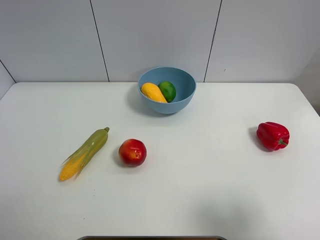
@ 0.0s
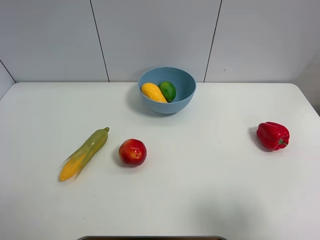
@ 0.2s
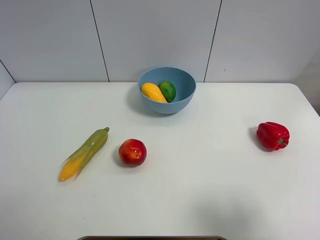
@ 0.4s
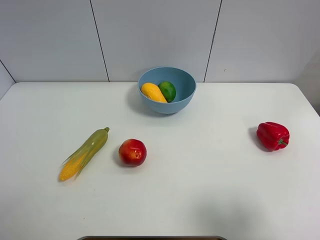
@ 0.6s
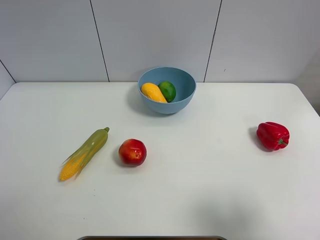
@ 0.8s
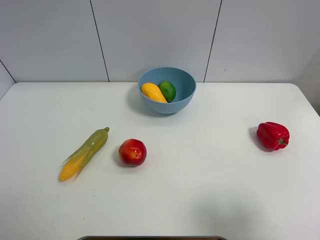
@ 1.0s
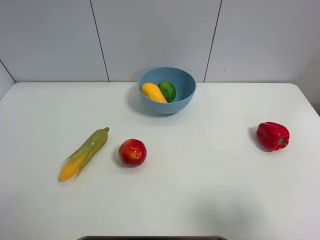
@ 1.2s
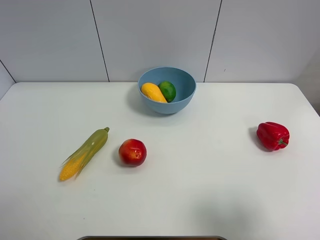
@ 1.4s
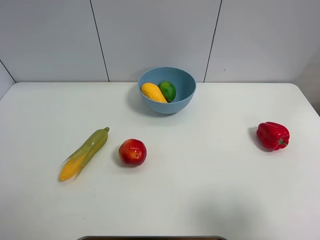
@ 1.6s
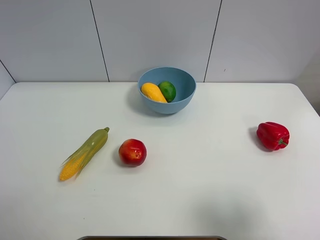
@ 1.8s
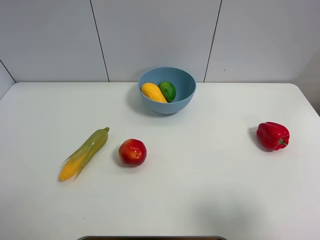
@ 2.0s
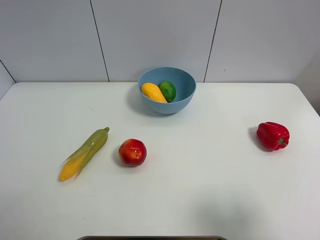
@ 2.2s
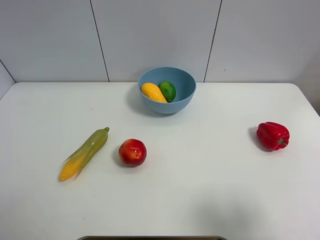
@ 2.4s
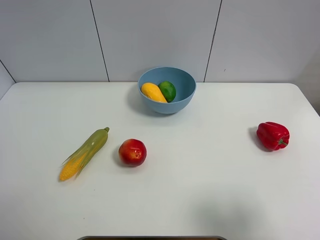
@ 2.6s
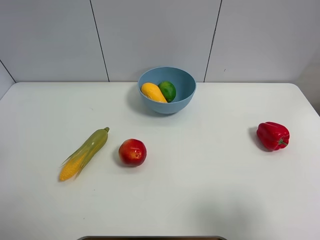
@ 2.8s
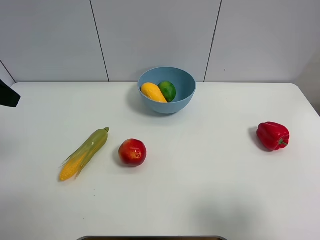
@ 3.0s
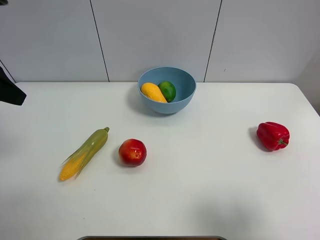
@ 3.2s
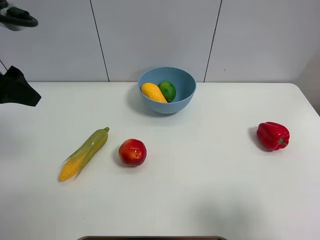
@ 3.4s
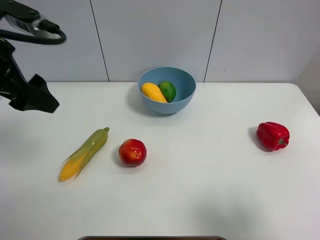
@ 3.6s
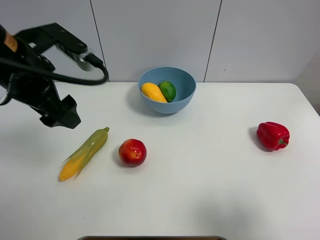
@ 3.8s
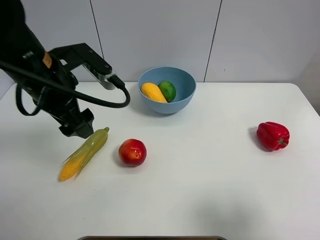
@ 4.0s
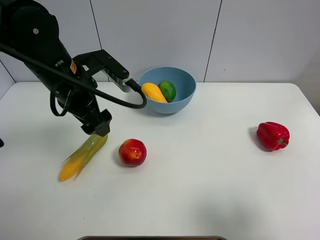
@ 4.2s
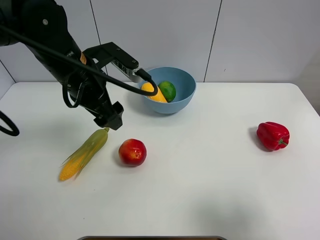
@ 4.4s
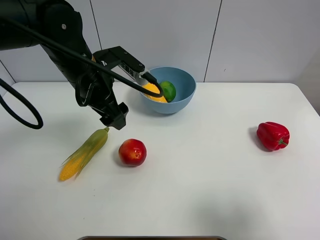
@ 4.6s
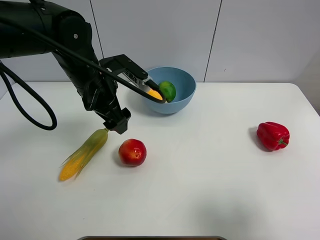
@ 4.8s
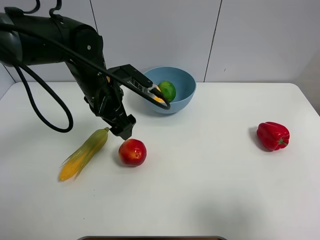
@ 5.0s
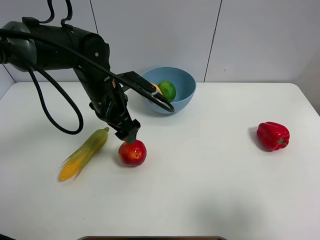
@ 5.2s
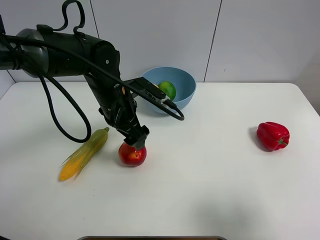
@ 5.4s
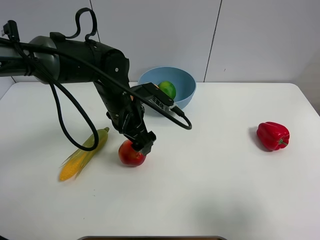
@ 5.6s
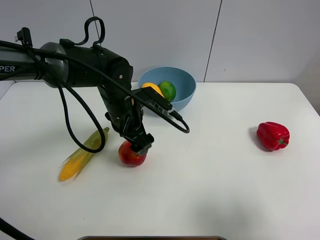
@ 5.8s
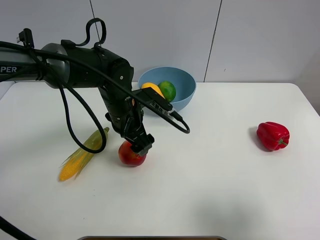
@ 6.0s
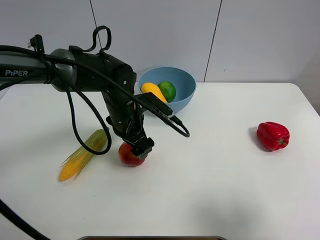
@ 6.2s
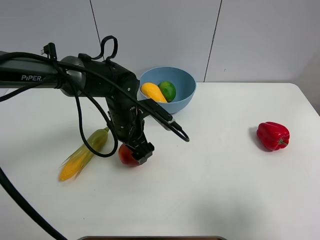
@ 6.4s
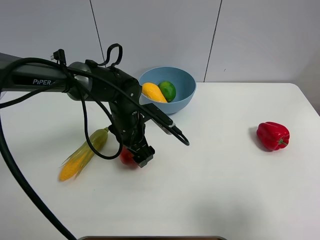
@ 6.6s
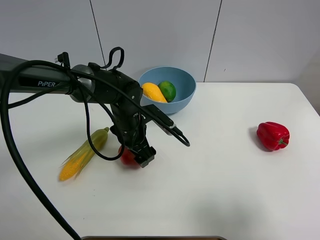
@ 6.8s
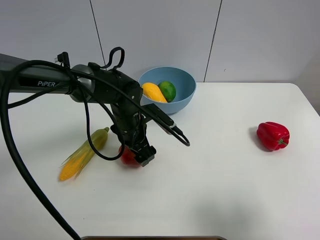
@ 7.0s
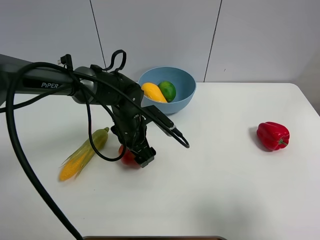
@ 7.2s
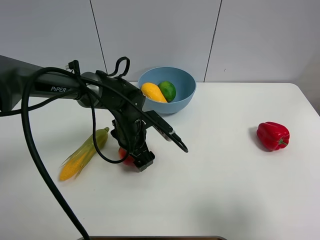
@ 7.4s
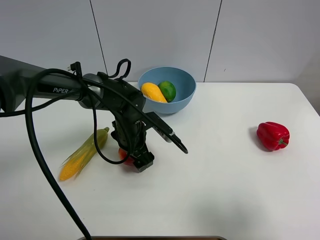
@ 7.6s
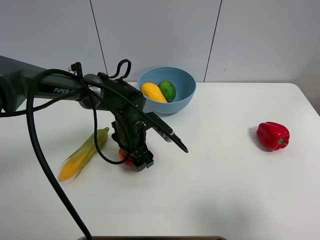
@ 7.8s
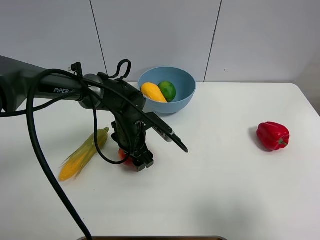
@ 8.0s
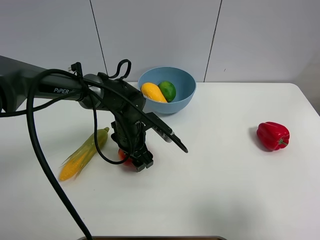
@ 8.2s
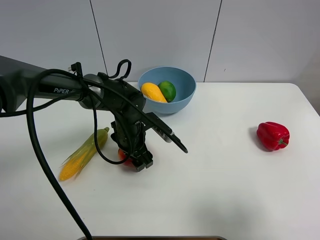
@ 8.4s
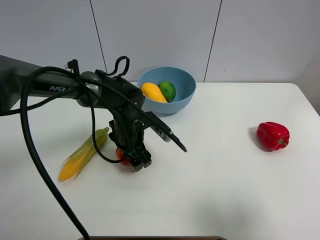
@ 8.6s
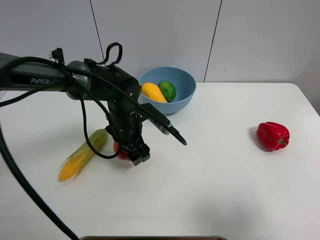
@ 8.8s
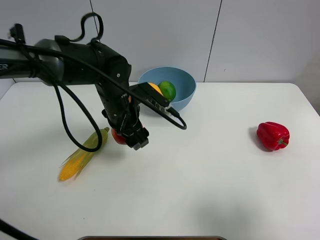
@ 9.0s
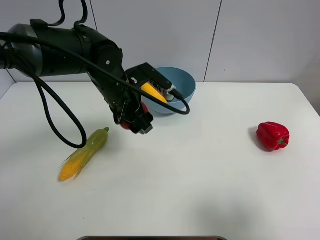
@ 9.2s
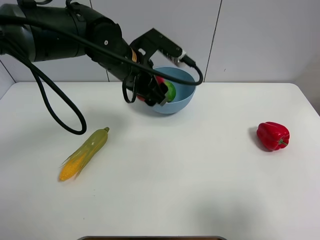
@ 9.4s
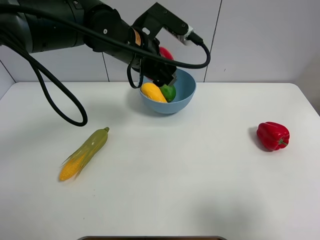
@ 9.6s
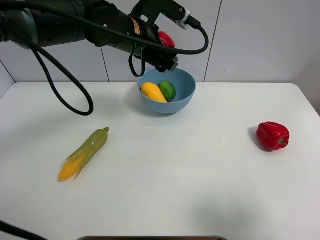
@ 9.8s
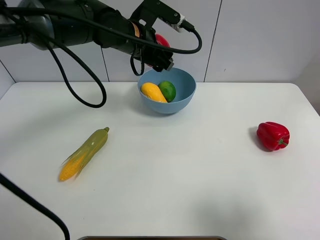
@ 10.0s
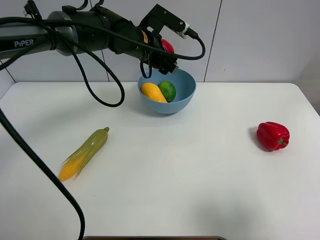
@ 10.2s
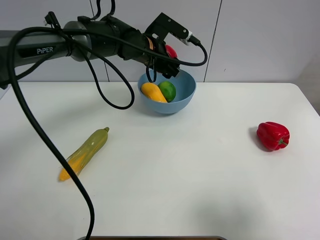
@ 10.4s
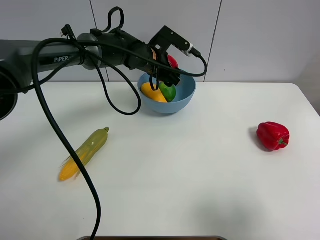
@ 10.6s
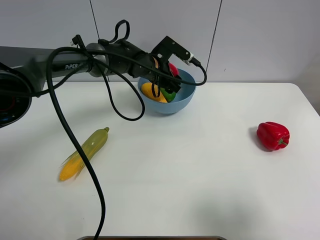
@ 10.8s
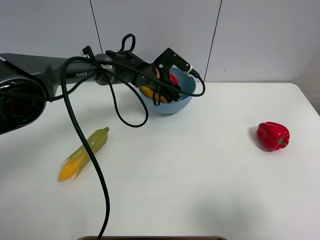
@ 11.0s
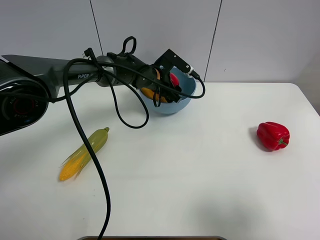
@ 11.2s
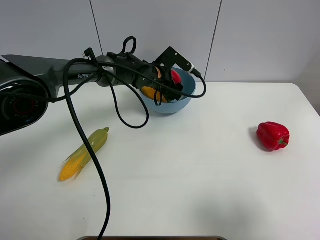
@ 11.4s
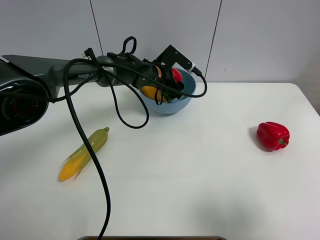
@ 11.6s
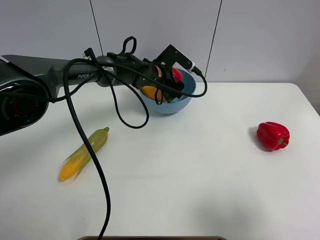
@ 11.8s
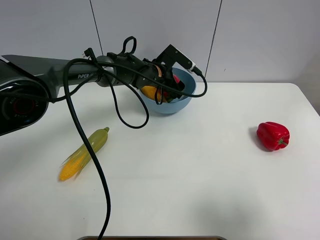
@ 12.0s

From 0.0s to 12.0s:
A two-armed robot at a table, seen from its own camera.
Task of the whole recording: Put the three fruits on the table into a bowl.
Step, from 0.0s to 7.8s: Grasp the pomegranate with left gripper.
From 0.0s to 1.6s: Both grippers stay put.
From 3.0s to 4.4s: The left gripper goes approximately 20 cm to the right and downward.
From 4.4s to 6.0s: The left gripper heads downward and to the right, covering some 10 cm.
From 6.0s to 7.6s: The left gripper heads downward, covering roughly 10 cm, and closes its fingers.
From 7.6s to 9.0s: The left gripper shifts roughly 10 cm upward, and closes.
From 9.0s to 10.4s: The left gripper is displaced forward and to the right by roughly 15 cm.
From 10.4s to 12.0s: The left gripper shifts about 10 cm downward.

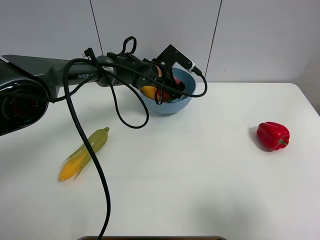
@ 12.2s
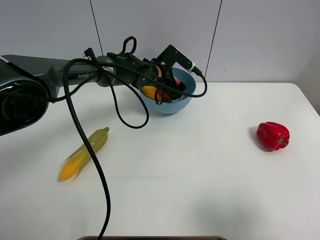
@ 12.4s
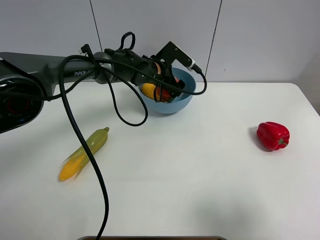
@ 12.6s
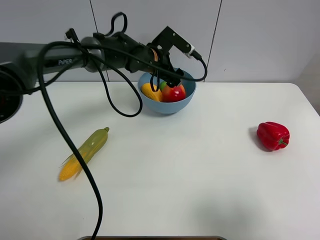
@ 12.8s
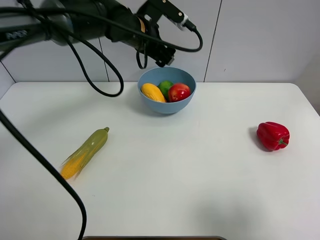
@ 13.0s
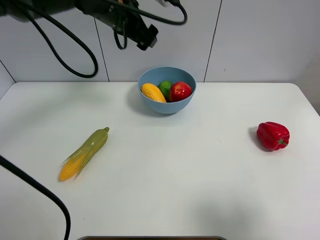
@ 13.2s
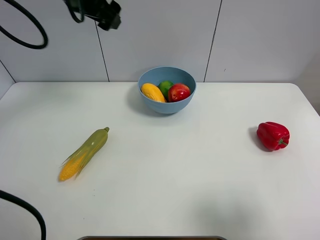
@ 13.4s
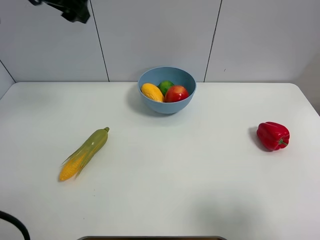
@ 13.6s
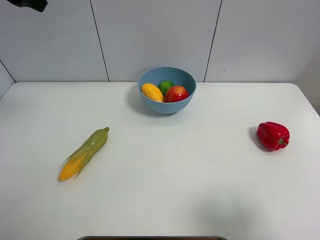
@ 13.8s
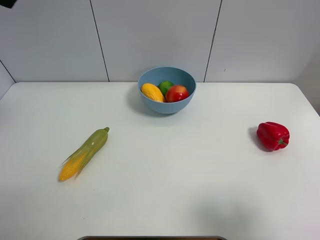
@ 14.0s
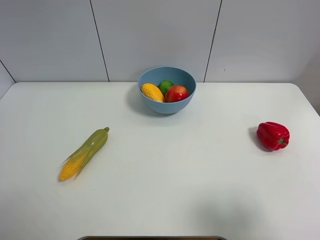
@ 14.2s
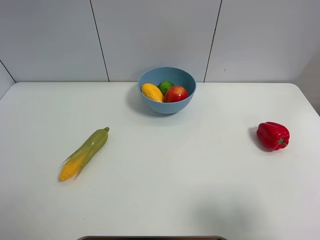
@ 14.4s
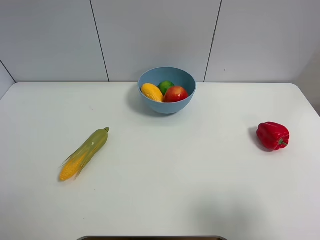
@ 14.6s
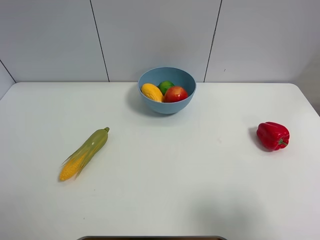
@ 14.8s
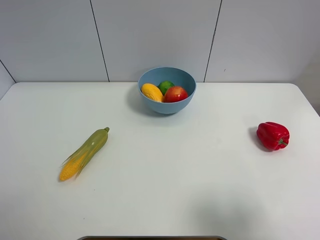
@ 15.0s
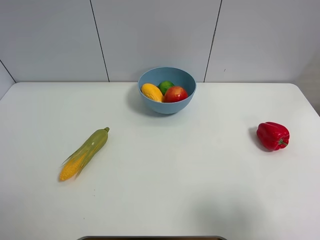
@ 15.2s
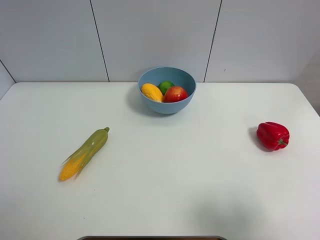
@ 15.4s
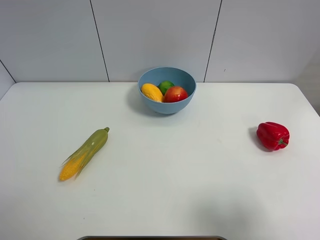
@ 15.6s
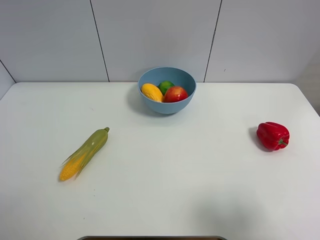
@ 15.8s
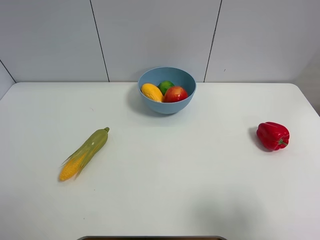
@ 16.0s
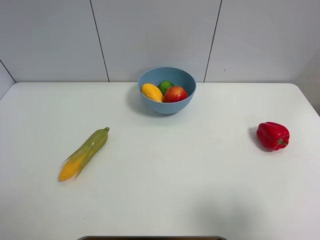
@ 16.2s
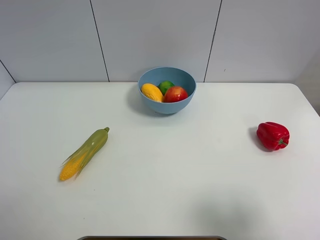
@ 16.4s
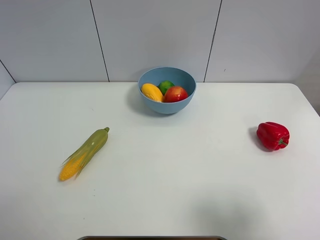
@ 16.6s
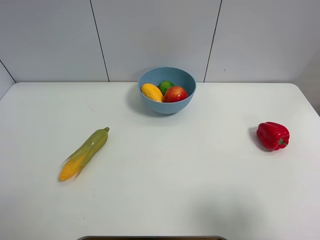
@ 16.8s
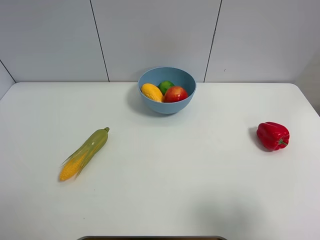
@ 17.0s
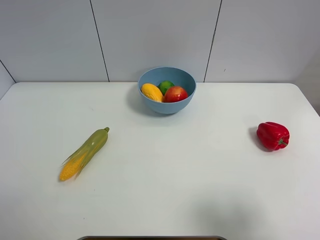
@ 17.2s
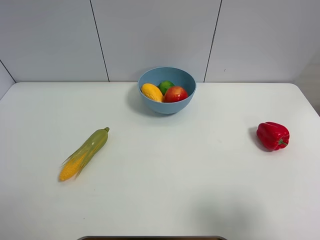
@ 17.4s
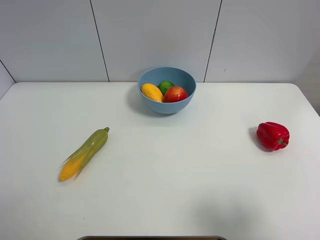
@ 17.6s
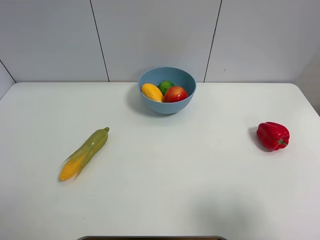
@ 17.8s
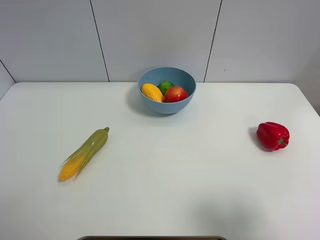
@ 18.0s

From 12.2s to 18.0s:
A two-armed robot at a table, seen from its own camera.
Task of the whole recording: Put the three fruits on the table into a bowl.
From 12.2s to 13.6s: The left gripper travels upward and to the left by about 35 cm.
From 13.6s to 15.0s: The left gripper heads backward and to the left, covering some 40 cm.

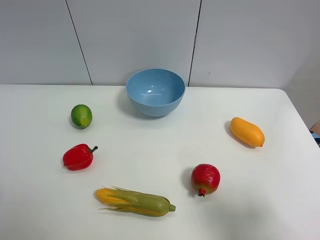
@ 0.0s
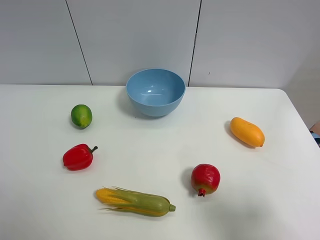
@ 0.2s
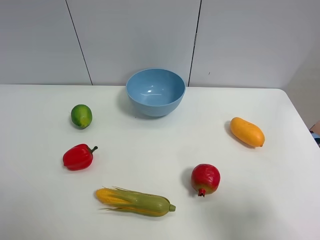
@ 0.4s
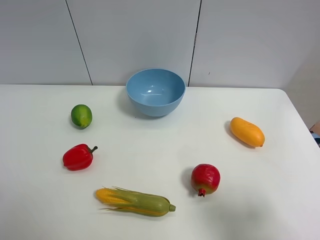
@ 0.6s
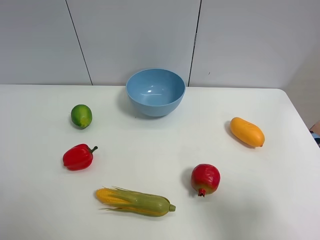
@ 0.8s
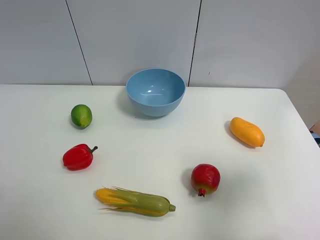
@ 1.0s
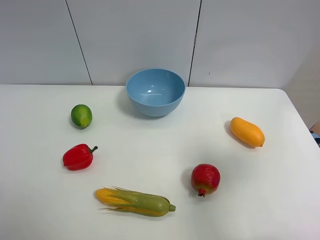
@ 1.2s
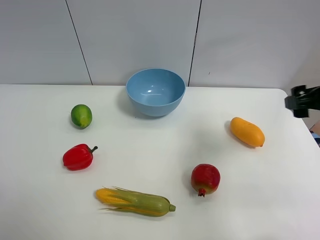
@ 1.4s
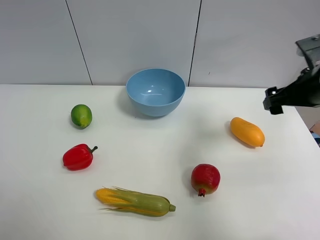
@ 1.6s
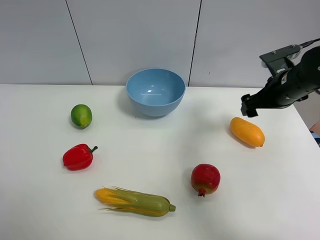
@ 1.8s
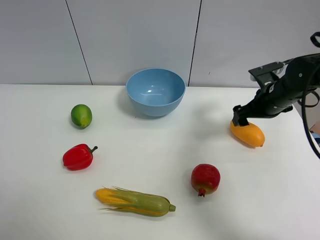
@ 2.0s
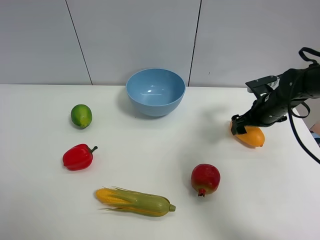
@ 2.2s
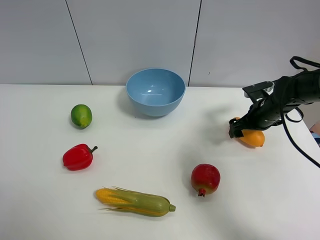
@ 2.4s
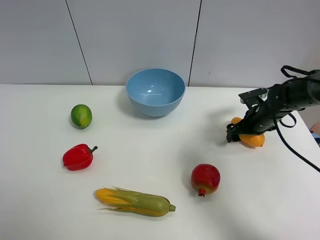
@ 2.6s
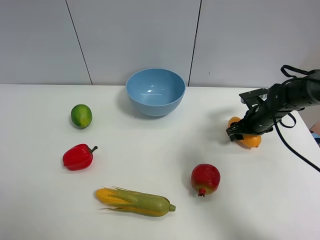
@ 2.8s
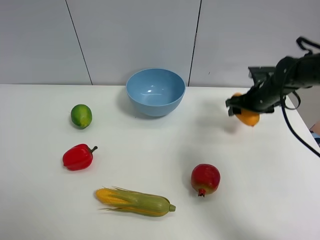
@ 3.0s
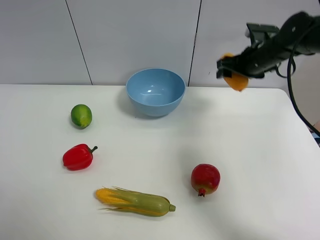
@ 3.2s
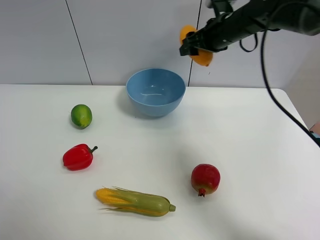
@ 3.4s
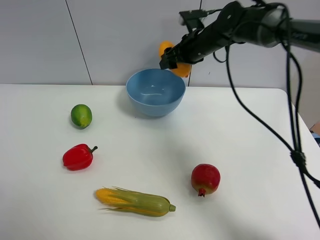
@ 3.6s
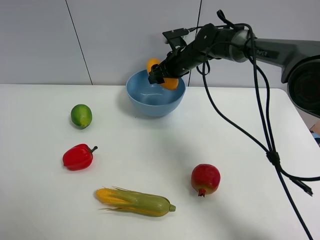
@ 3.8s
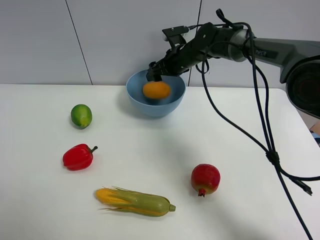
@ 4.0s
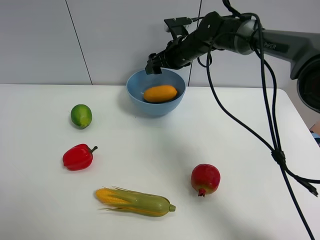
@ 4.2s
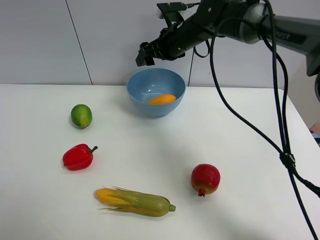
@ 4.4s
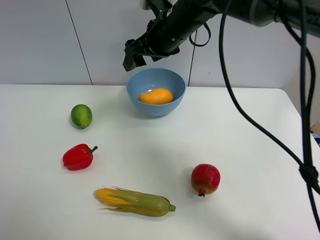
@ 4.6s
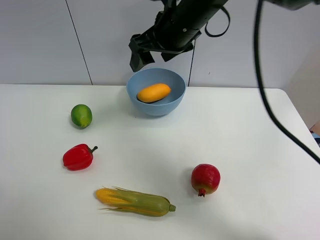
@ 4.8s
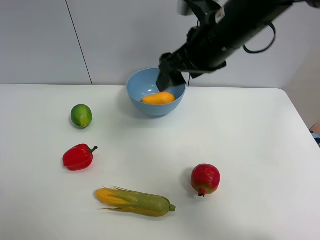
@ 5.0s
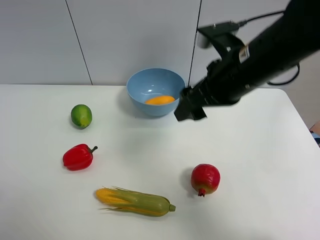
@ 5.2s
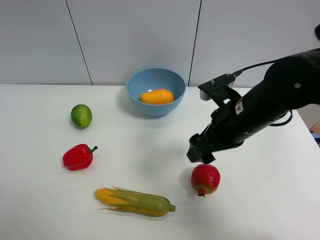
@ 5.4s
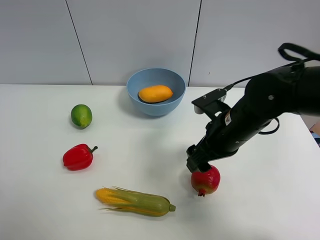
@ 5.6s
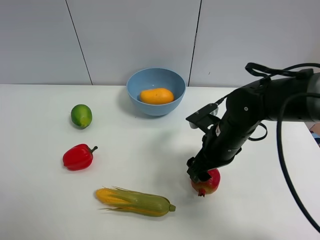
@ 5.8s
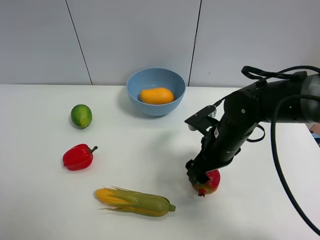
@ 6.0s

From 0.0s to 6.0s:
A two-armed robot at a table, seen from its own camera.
Task of the whole recording: Put the three fruits on the table into a bowl.
Step, from 0.0s to 2.6s: Grasp the mango with right gripper.
Step, from 2.8s to 4.4s: Place the mango in the blue bowl with right gripper.
From 0.0s to 1.6s: The right gripper heads forward, covering about 25 cm.
From 1.6s to 3.0s: The right gripper goes about 15 cm forward and downward, and closes.
From 3.0s to 4.4s: The right gripper goes about 25 cm to the left and upward, and opens.
From 4.4s to 6.0s: The right gripper is displaced backward, downward and to the right by about 25 cm.
